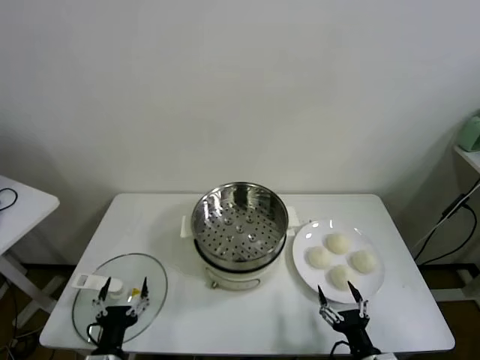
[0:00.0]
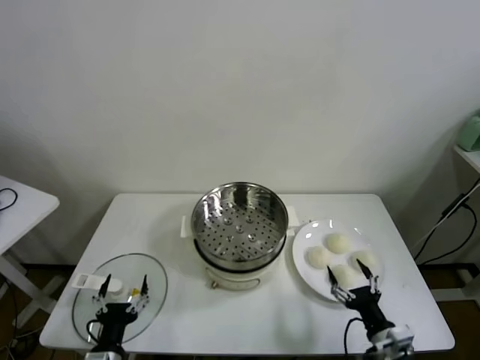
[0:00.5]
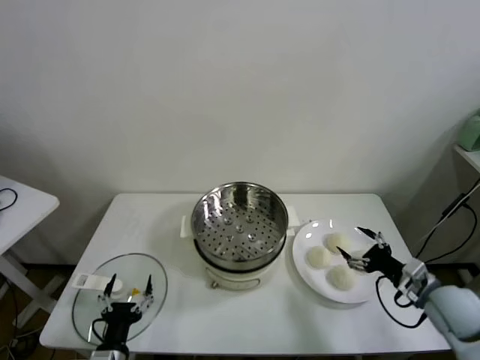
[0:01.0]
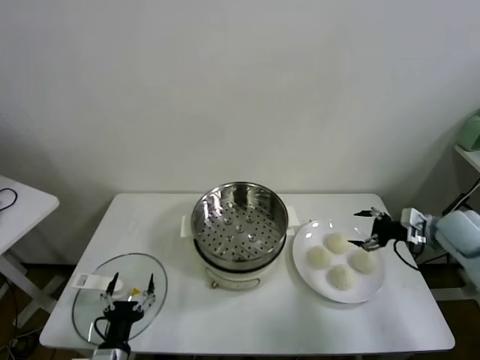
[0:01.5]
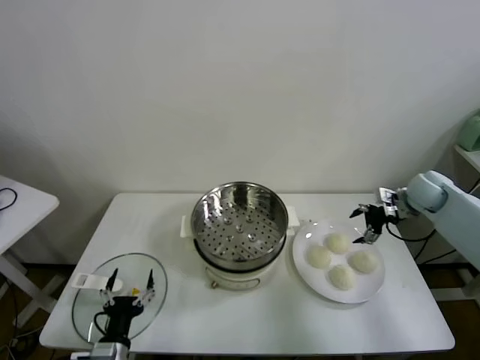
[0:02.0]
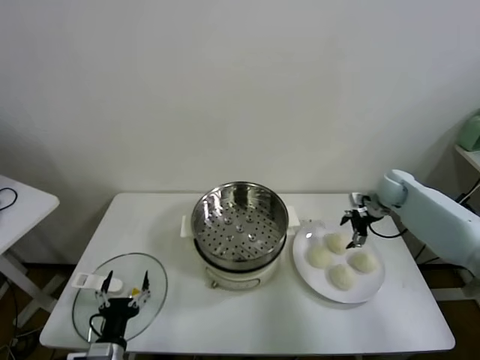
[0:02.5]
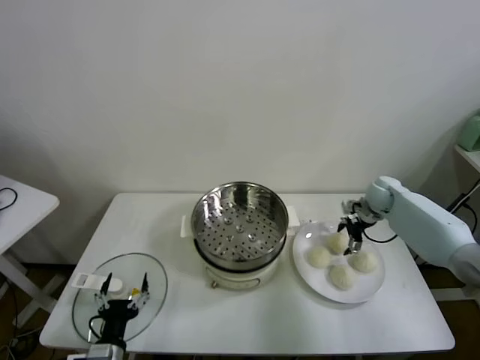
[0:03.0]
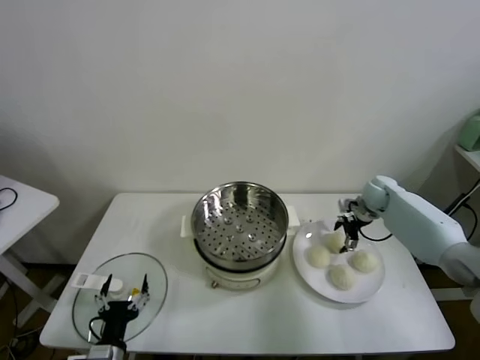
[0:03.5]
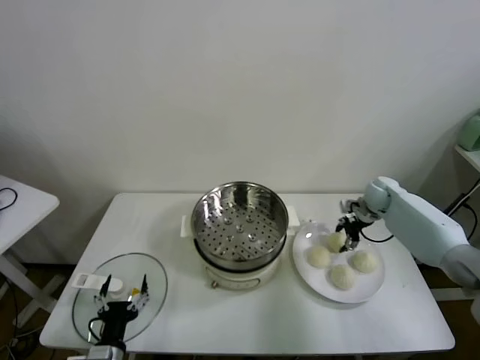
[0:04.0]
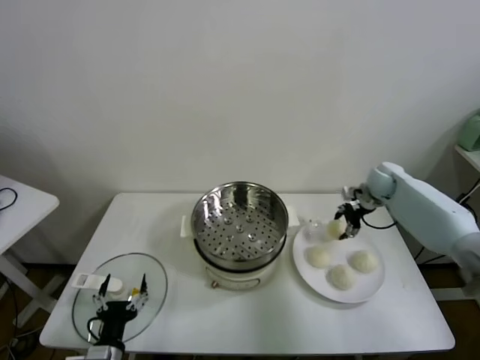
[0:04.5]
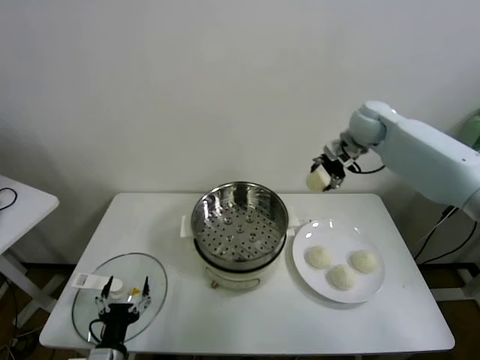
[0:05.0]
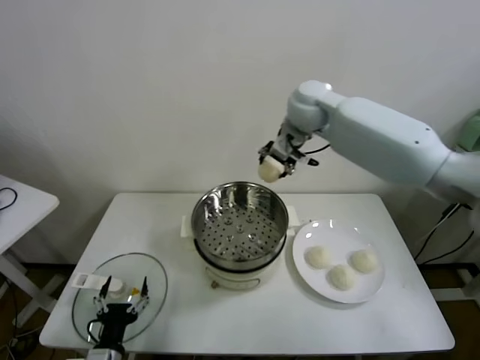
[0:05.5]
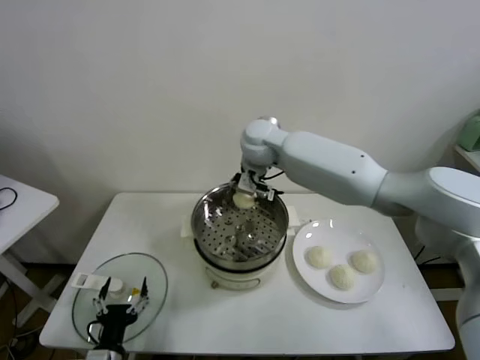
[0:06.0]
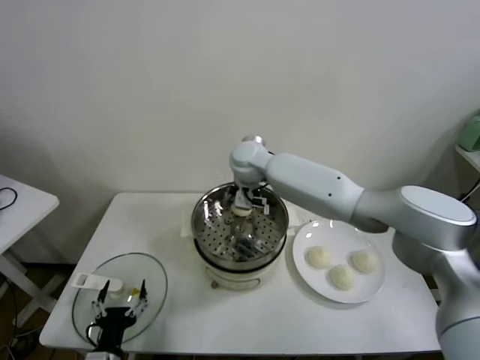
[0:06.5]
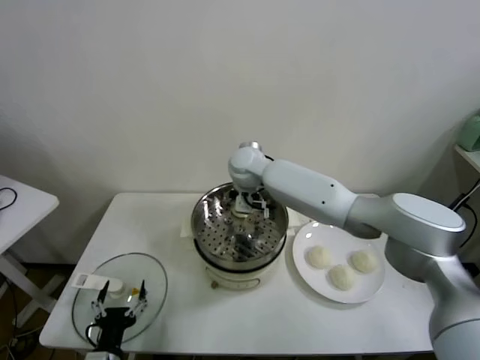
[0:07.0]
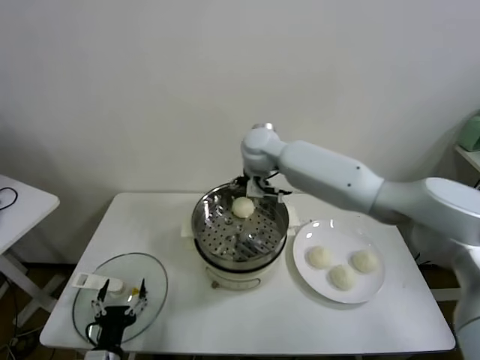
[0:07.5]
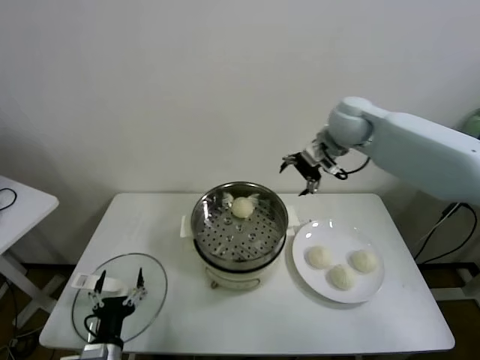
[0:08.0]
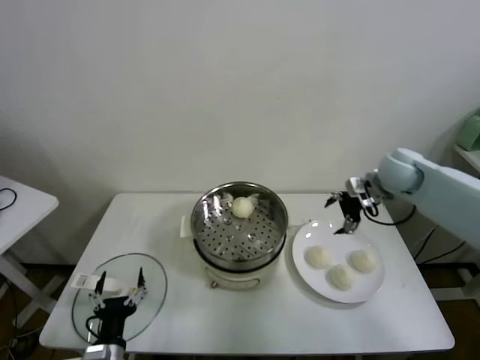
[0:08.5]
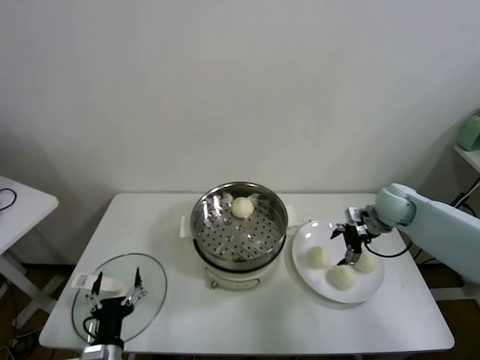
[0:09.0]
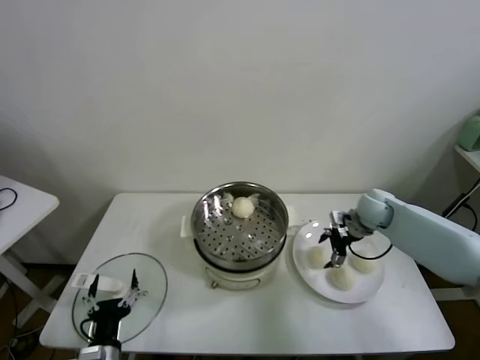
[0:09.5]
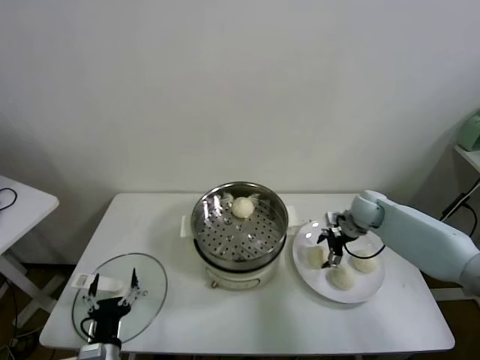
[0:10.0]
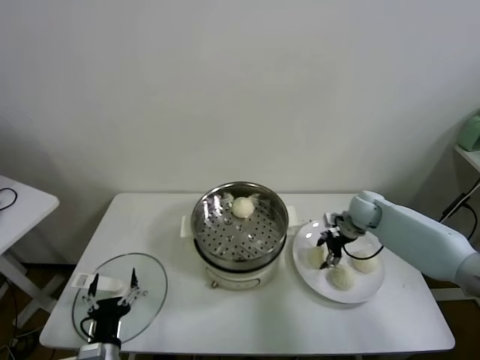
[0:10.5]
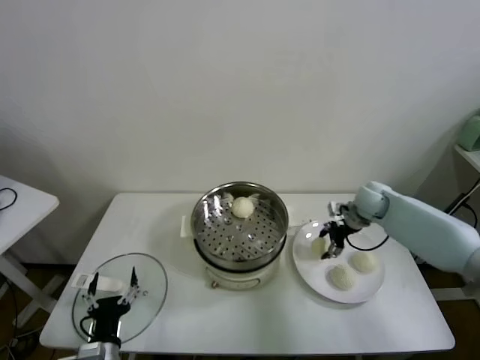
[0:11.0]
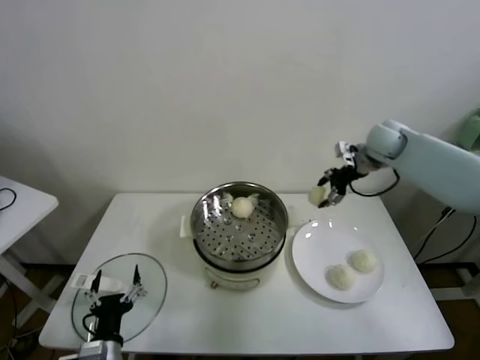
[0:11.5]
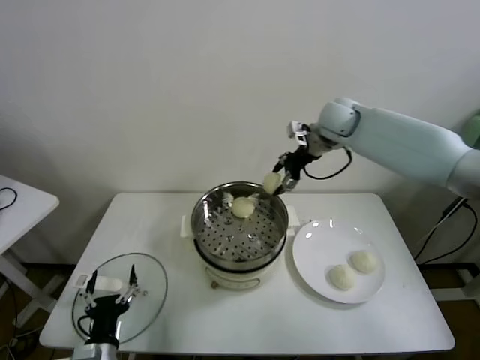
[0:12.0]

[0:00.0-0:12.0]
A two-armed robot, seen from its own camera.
Task of the whole recording: take steamed baozi put them in steamer.
Step, 0:00.0 to 0:03.5: Grasp the baozi in the plate with right gripper.
Step, 0:04.0 to 0:07.0: Place the baozi on the steamer with right gripper.
Step, 0:07.5 to 0:10.5: Grasp the baozi in the plate with right gripper.
0:02.0 to 0:04.0: The right gripper shifts approximately 10 cm downward and to the left, and closes up.
0:04.0 to 0:06.0: The right gripper moves to the left and upward, some 40 cm.
0:06.0 to 0:08.0: The right gripper is displaced to the right by roughly 20 cm, and opens up.
0:08.0 to 0:10.0: The right gripper travels downward by roughly 25 cm.
0:10.0 to 0:12.0: The right gripper heads upward and to the left, covering about 25 cm, and closes up.

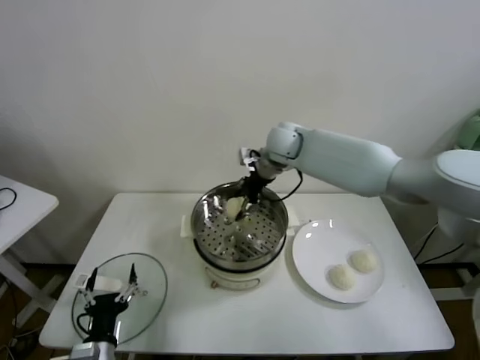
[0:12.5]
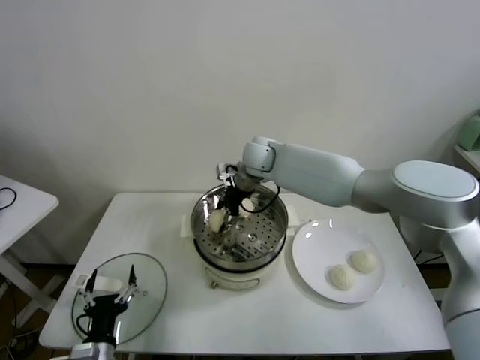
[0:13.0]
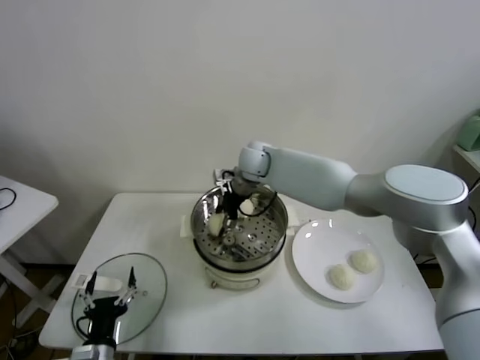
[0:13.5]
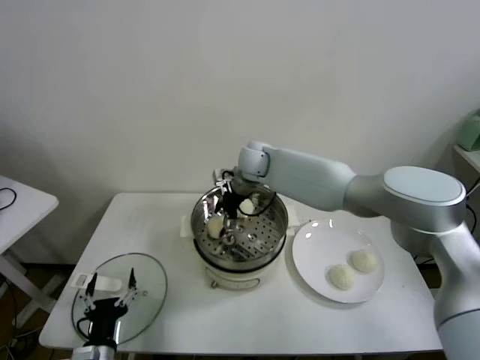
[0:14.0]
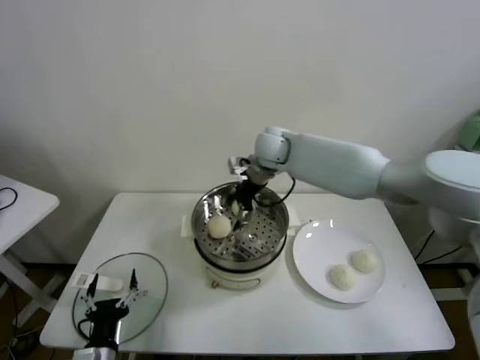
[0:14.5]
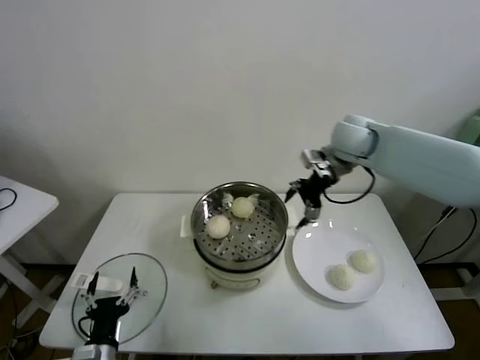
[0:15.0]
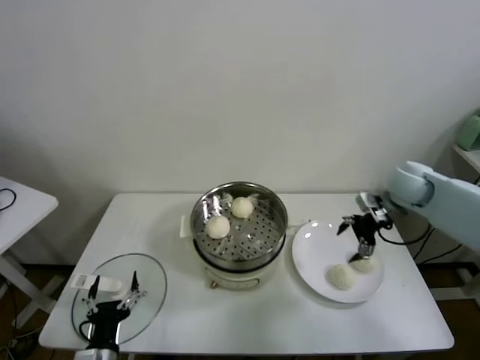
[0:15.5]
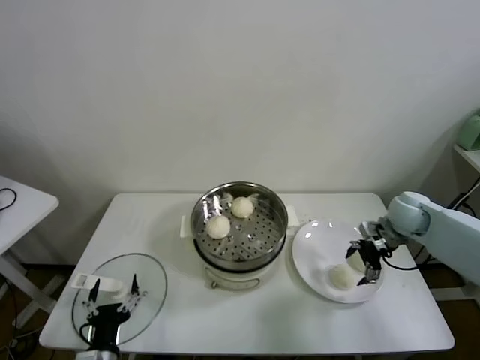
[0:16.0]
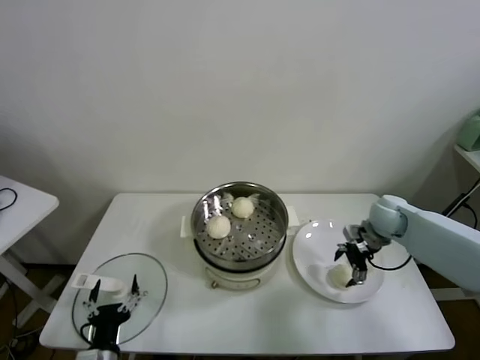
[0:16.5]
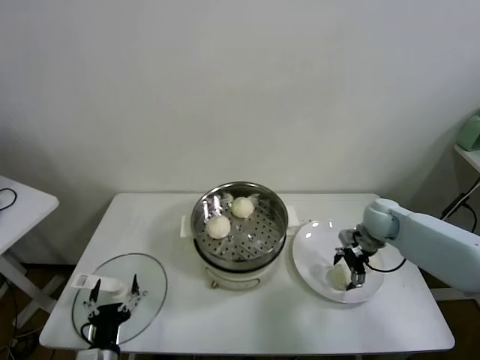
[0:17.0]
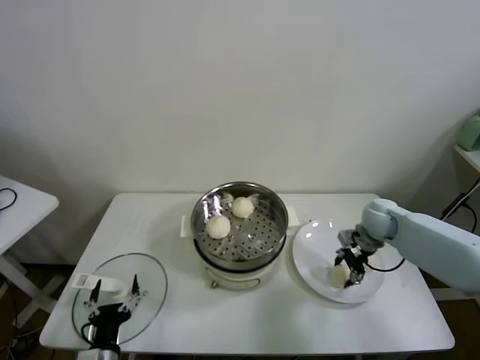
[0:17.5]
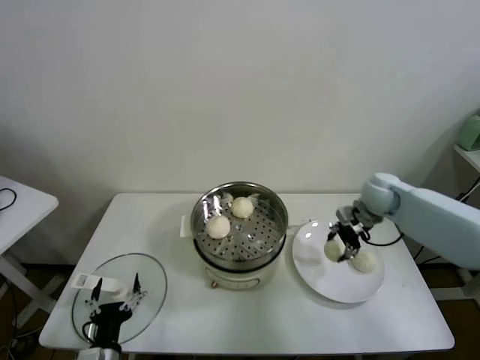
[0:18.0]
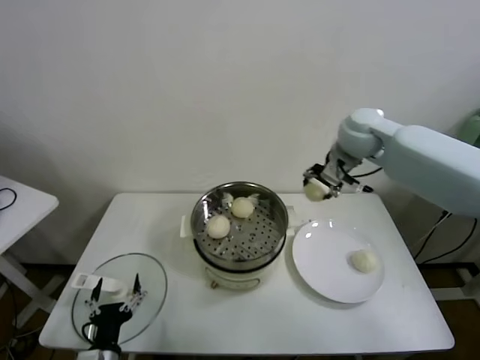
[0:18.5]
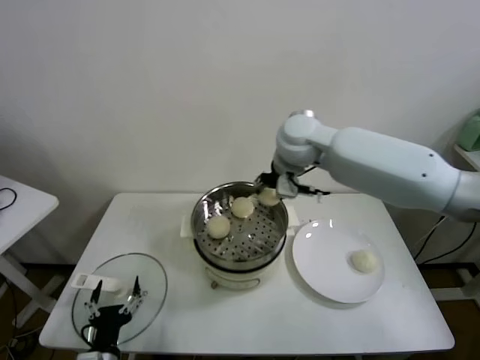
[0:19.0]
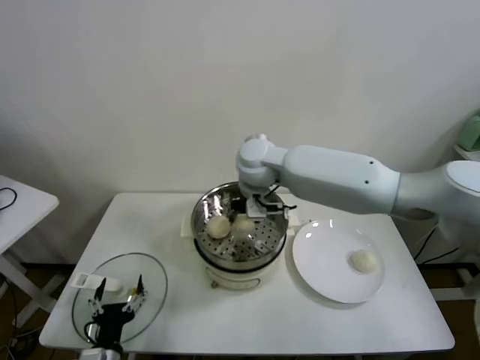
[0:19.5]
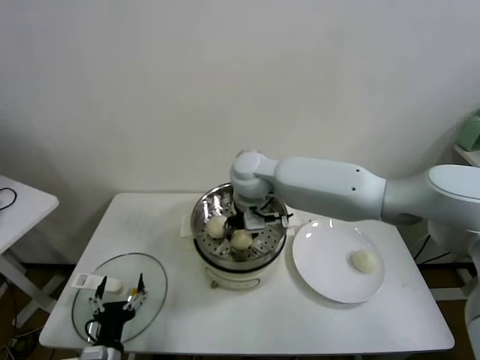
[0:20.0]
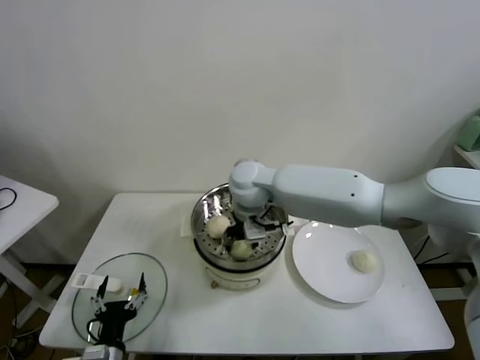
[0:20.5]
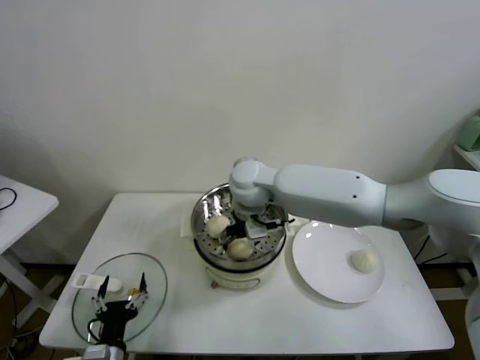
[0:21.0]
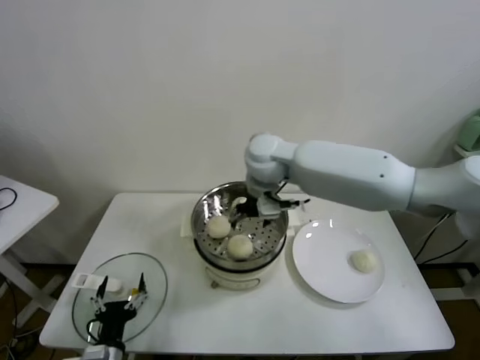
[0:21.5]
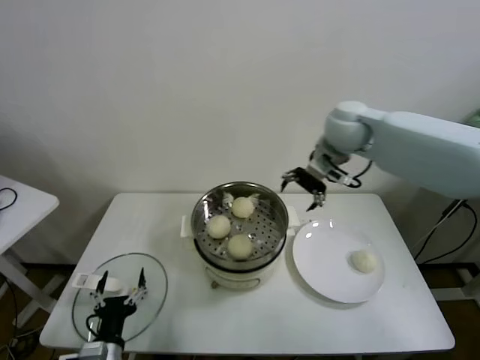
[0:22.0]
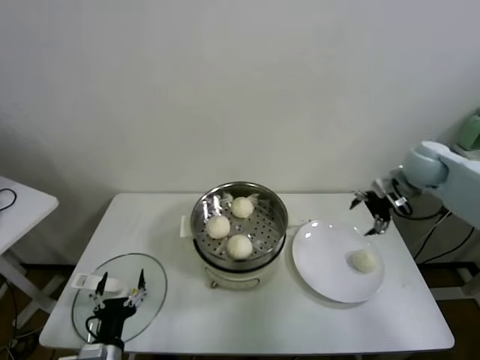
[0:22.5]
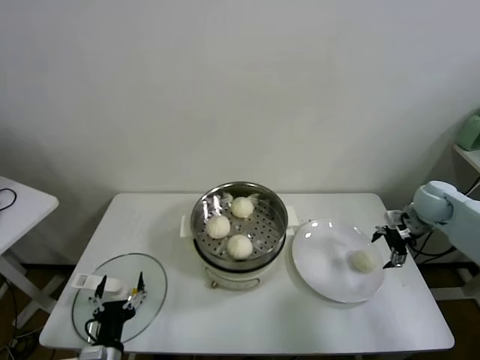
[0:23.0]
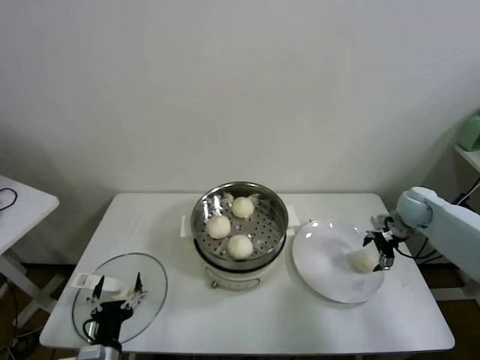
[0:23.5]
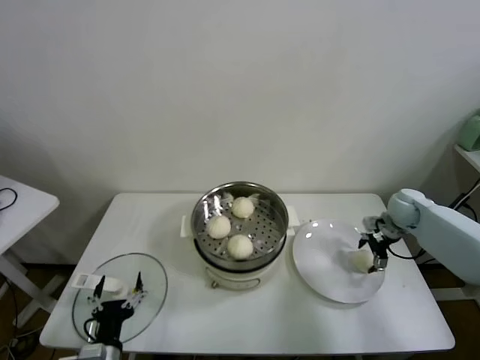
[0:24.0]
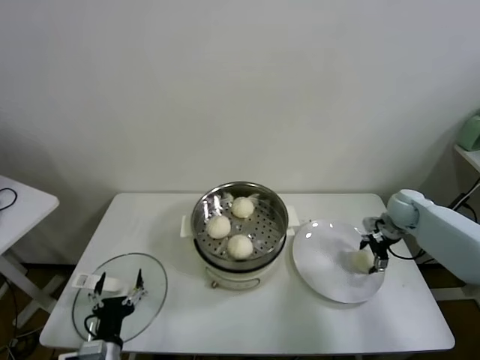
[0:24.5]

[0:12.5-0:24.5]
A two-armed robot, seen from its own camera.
Task of the whole recording: take steamed baozi put them in steamer.
Step, 0:14.5 to 0:17.0: Grasp the baozi in the plate with right gripper.
Step, 0:18.0 to 0:20.5: Place the baozi on the steamer with right gripper.
0:12.5 to 0:14.5: The right gripper opens up.
0:14.5 to 0:16.5: The right gripper heads to the right and downward, covering about 30 cm.
0:16.5 to 0:18.5: The right gripper is displaced upward and to the left by some 25 cm, and closes its fingers.
0:18.5 to 0:20.5: The right gripper goes some 25 cm to the left and downward.
0:20.5 to 0:22.5: The right gripper shifts about 40 cm to the right, and opens its fingers.
0:22.5 to 0:24.5: The right gripper shifts roughly 15 cm downward.

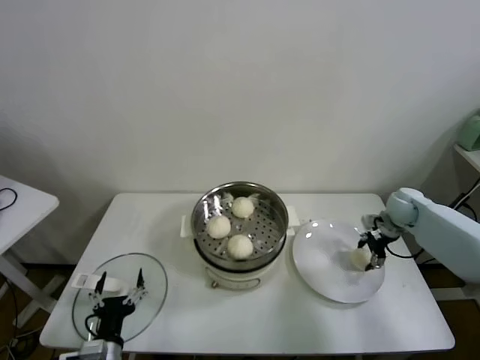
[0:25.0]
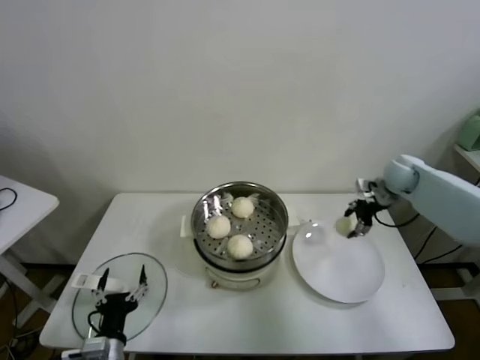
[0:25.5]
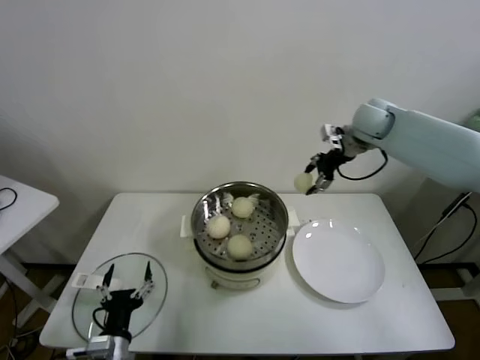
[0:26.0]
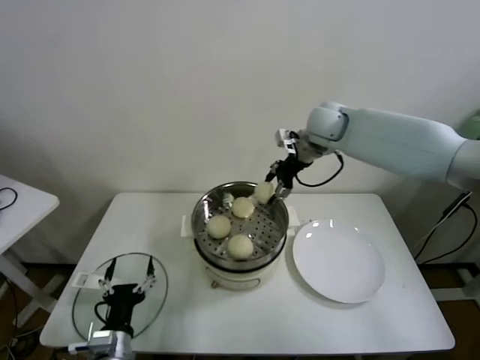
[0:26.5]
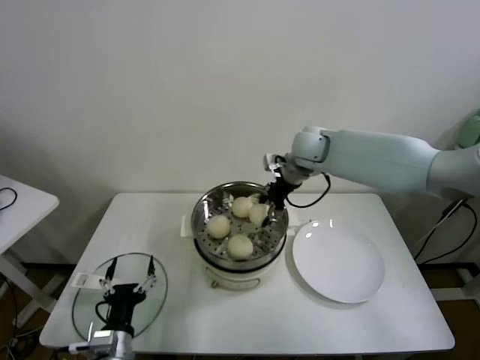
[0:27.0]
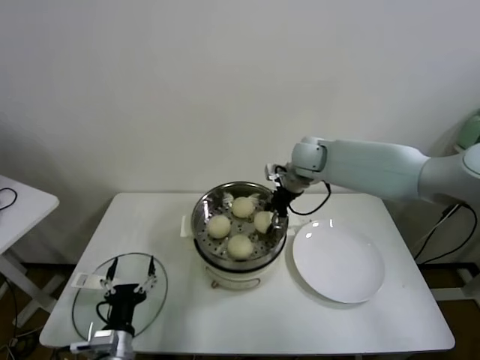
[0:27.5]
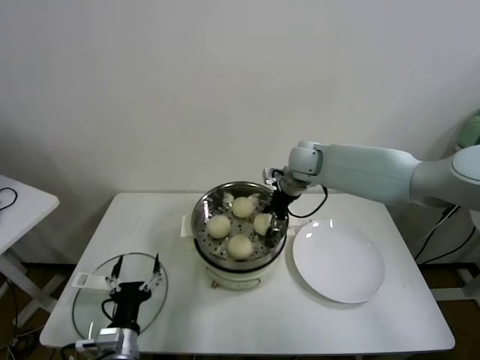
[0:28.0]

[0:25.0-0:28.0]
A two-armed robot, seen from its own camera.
Task of the whole recording: take steamed baozi put them in steamer.
0:25.0 to 0:26.5: The right gripper moves to the left and upward, some 35 cm.
0:26.5 to 0:28.0: The right gripper is displaced downward by roughly 10 cm.
